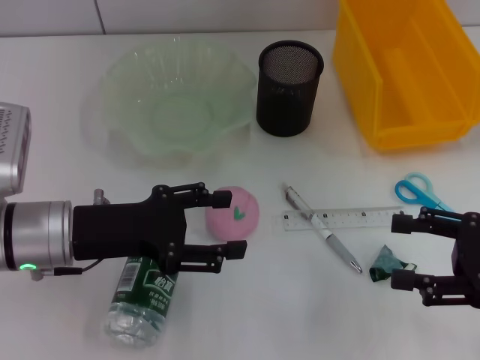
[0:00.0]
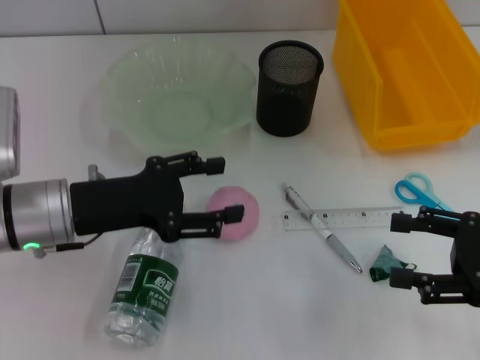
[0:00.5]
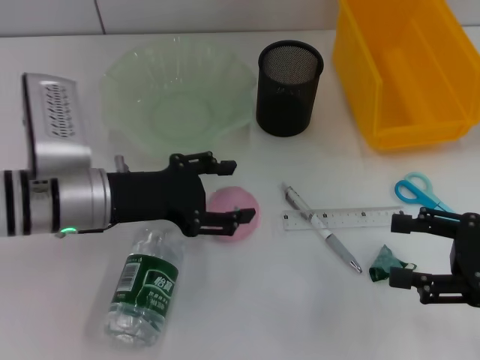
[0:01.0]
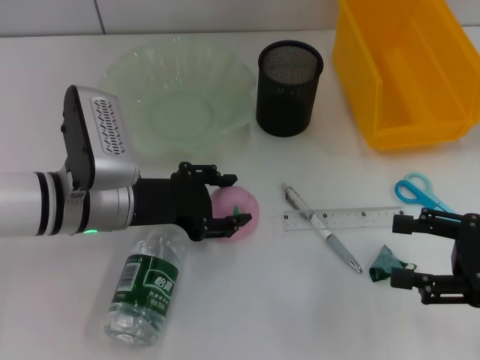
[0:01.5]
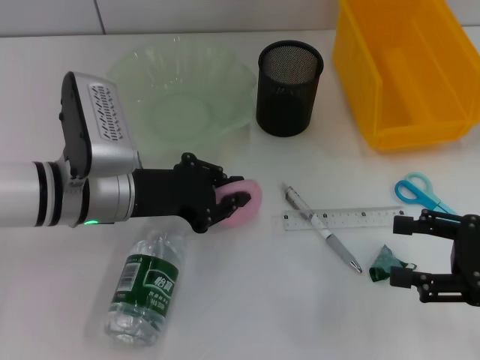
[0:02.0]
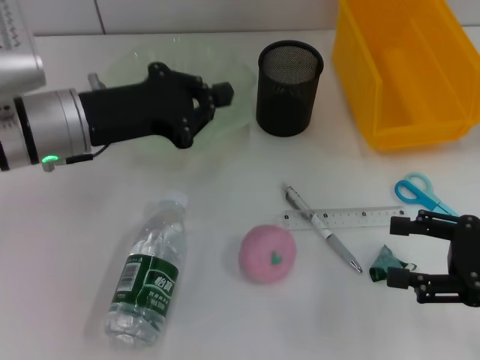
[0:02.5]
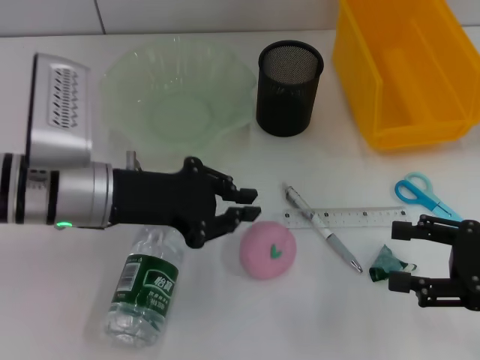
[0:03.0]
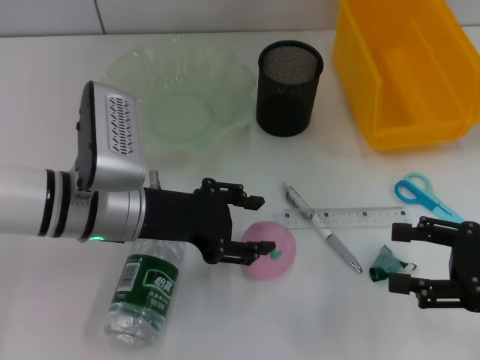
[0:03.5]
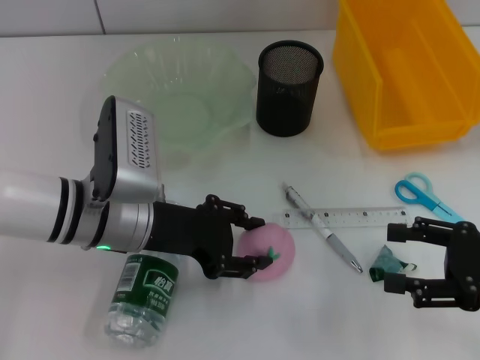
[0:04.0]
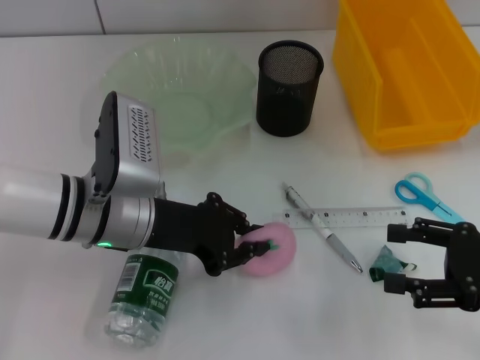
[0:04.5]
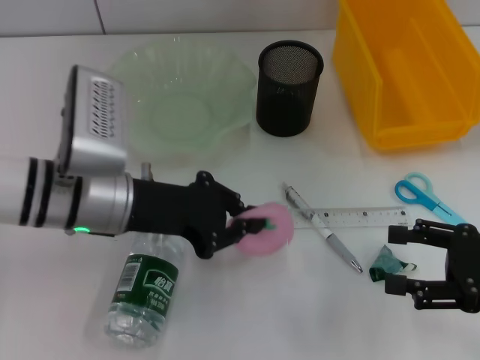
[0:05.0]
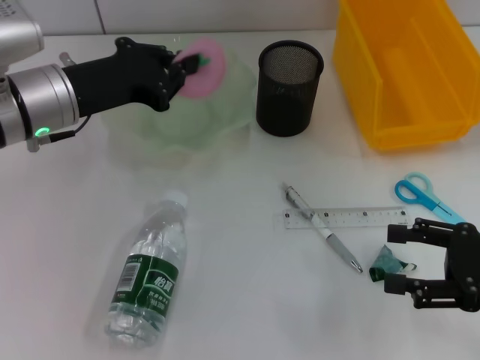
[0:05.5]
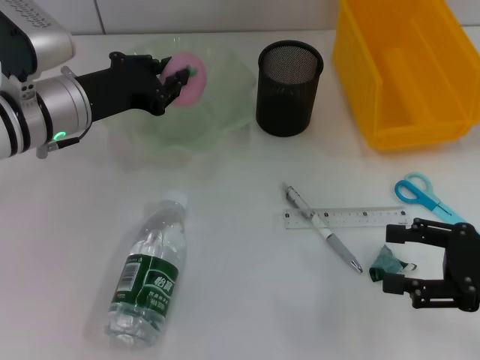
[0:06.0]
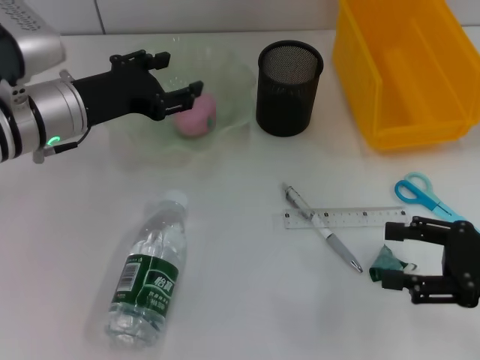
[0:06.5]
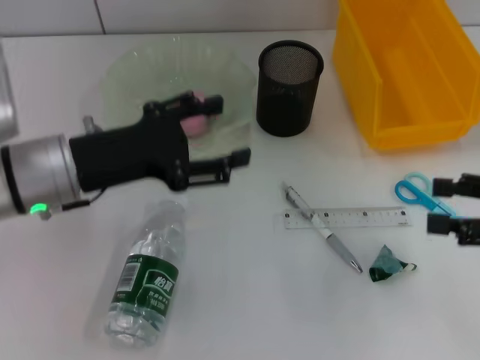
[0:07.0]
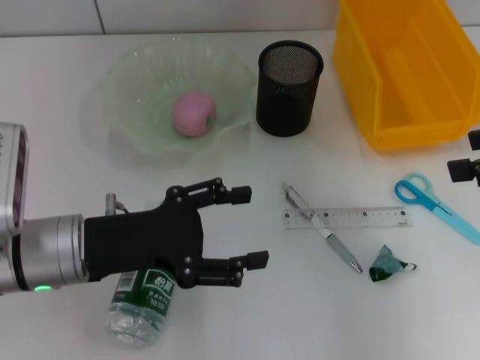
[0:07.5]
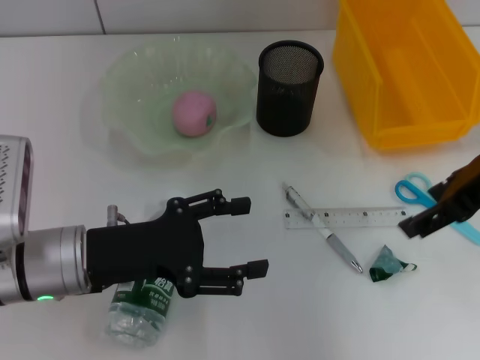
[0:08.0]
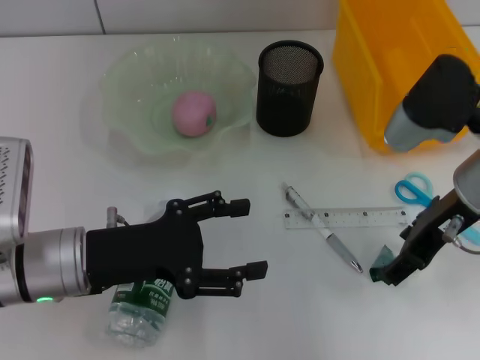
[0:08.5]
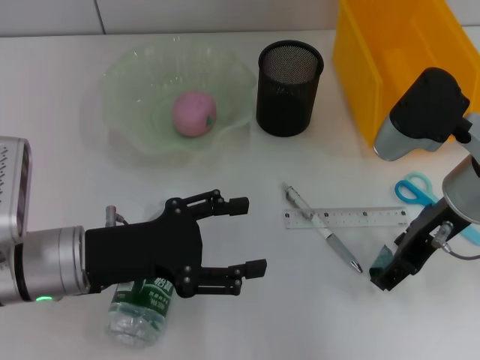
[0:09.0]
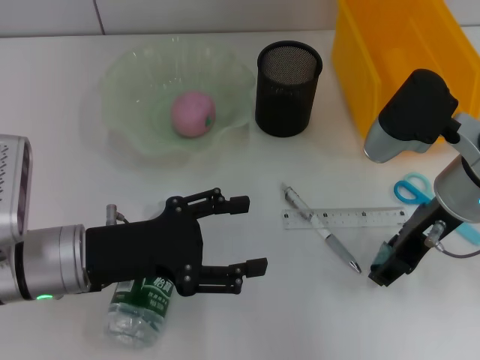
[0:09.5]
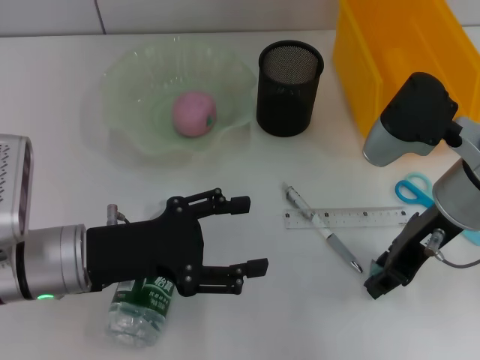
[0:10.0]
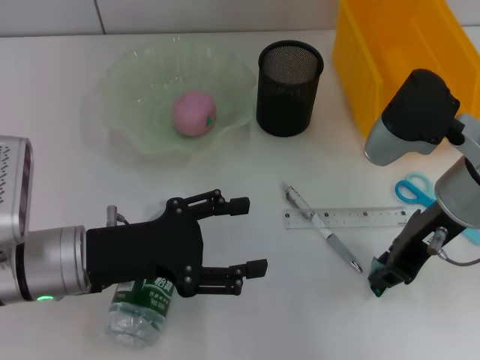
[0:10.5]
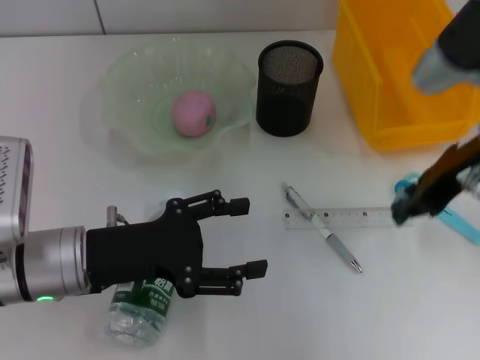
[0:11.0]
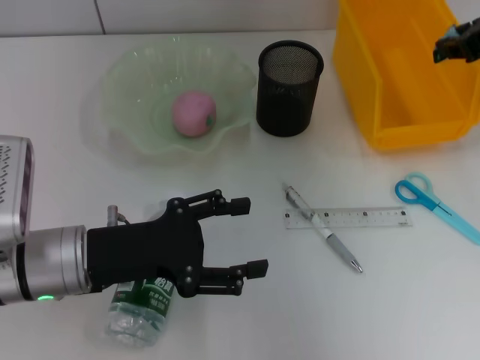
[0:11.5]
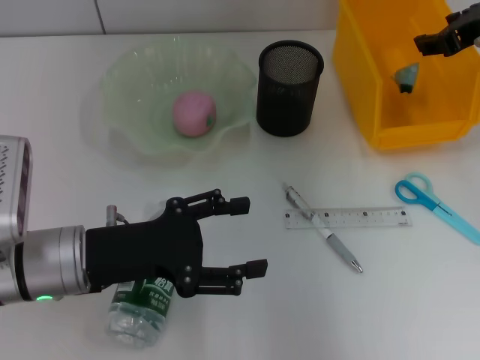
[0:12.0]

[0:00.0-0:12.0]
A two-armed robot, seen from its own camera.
Step, 0:00.0 to 0:04.0: Grab the peach with the left hand.
Step, 0:04.5 to 0:06.0: Place the peach into the fruit bowl with the left hand.
Step, 0:06.5 to 0:10.0: Grab the plastic with the right hand.
Step, 0:10.5 to 0:12.0: Place the plastic into the trash can with the right hand.
0:00.0 to 0:02.0: The left gripper moves approximately 5 cm, and closes its fingers.
0:02.0 to 0:04.0: The left gripper opens up.
0:04.0 to 0:06.0: The left gripper heads forward and to the left, covering about 10 cm, and closes up.
0:06.0 to 0:08.0: The right gripper heads upward, forward and to the left, covering approximately 15 cm. The left gripper heads backward, covering some 15 cm, and opens its fingers.
0:08.0 to 0:10.0: The right gripper travels downward and to the left by some 10 cm.
0:10.0 to 0:12.0: The right gripper shifts roughly 15 cm forward, upward and to the right.

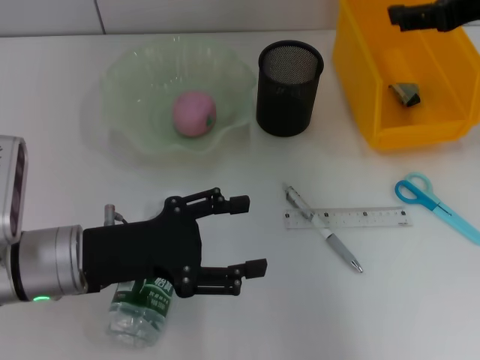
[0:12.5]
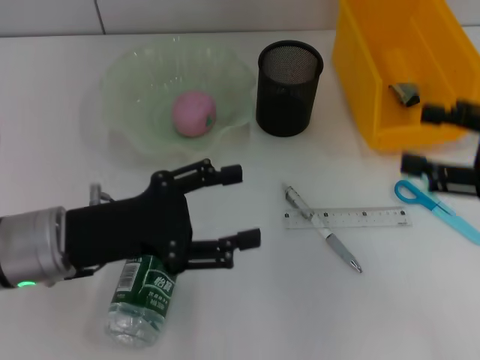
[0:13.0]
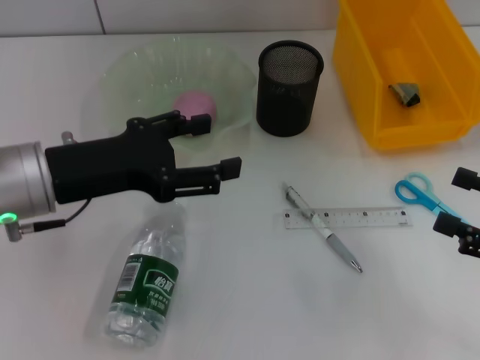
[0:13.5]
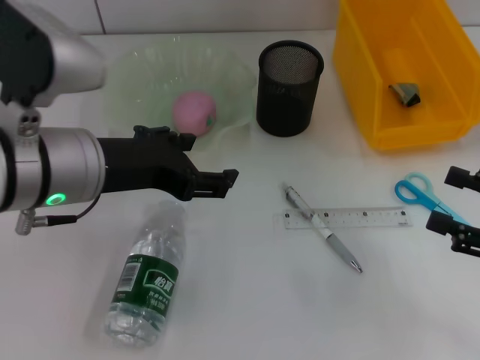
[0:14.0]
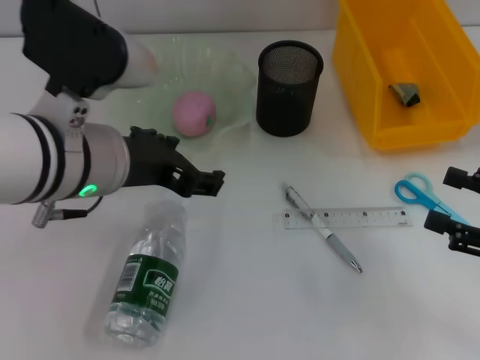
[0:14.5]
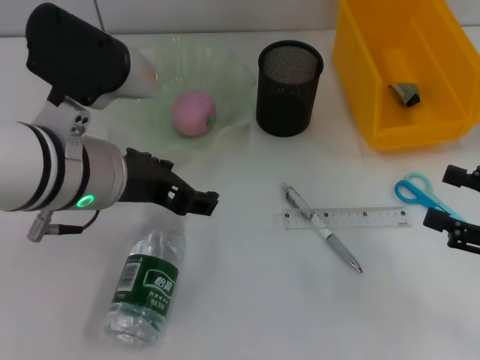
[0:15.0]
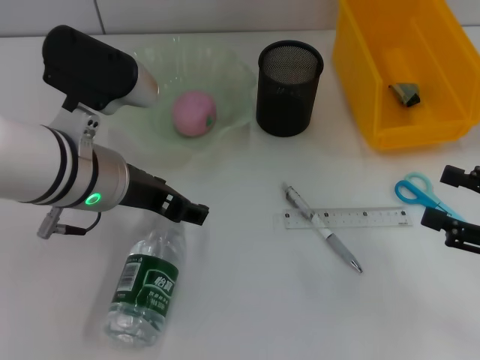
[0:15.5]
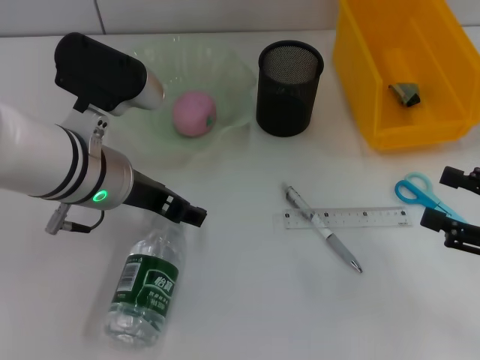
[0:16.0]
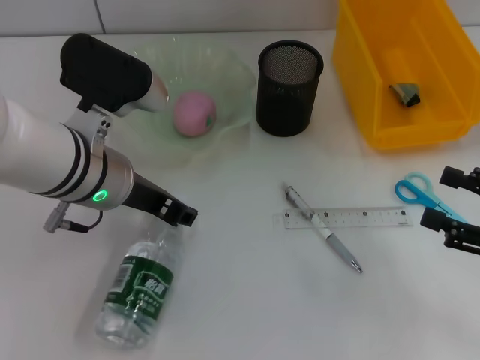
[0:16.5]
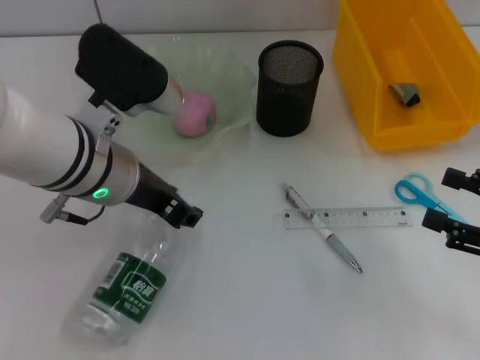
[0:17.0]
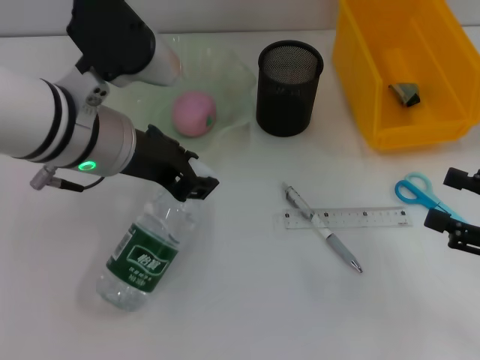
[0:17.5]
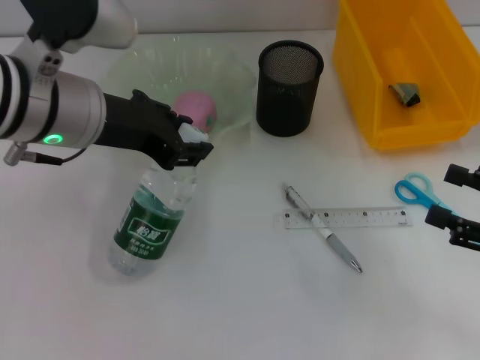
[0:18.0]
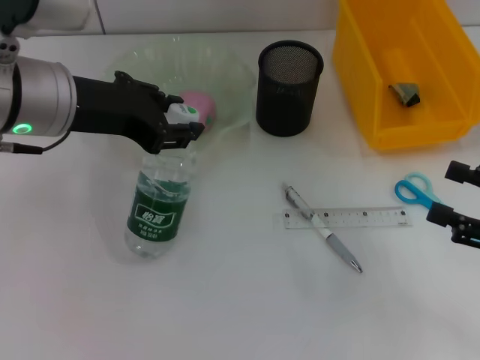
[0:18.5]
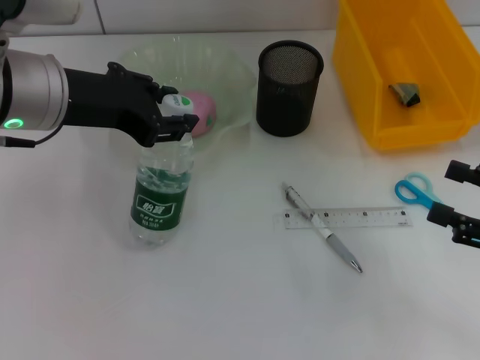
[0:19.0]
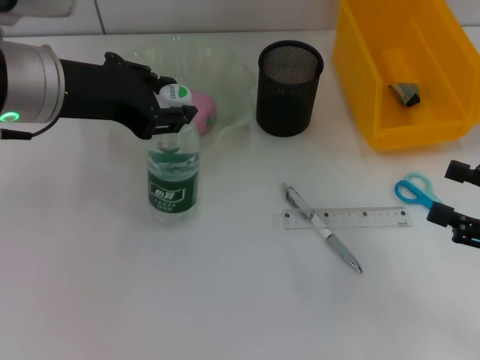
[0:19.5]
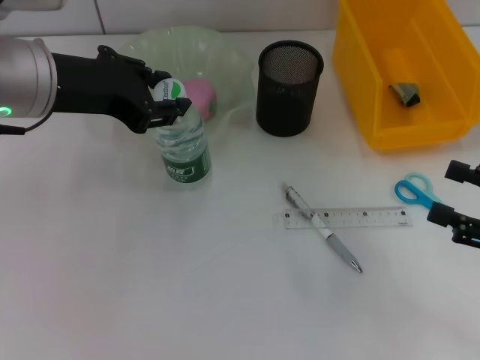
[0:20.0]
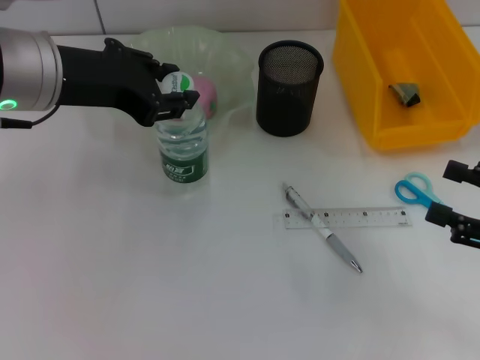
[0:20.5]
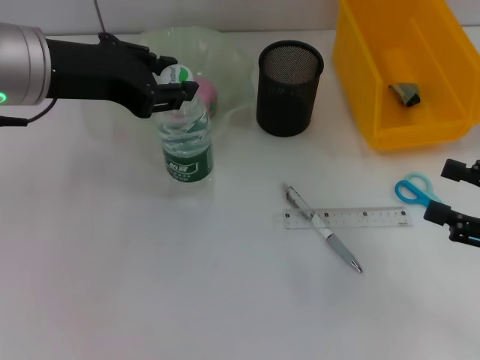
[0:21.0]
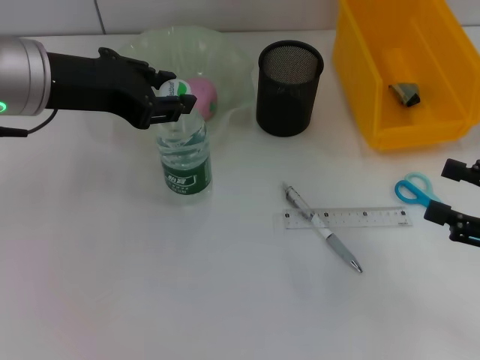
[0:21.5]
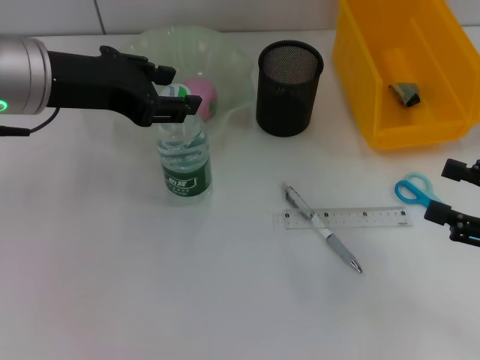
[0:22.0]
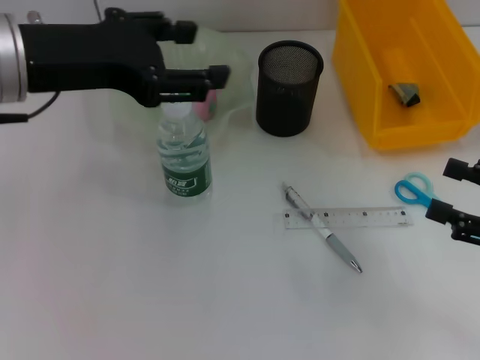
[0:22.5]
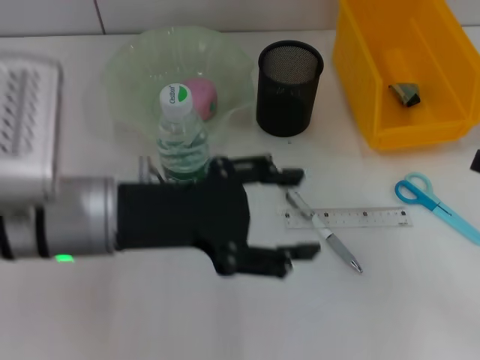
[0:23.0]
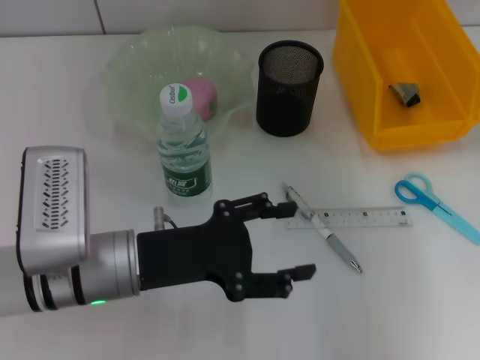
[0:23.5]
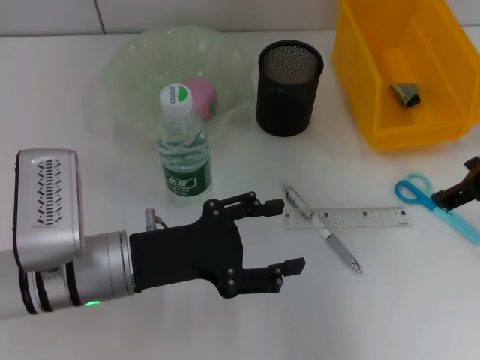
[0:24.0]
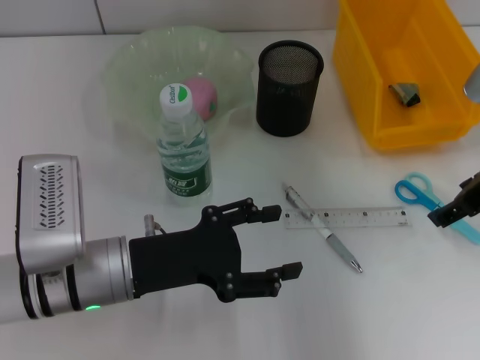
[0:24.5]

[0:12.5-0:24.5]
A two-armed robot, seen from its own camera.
Step, 0:12.5 to 0:16.5: Grab the water bottle with the left hand.
Step, 0:17.0 to 0:22.0: Place the water bottle on the table with the left hand.
0:12.5 to 0:14.5: The right gripper travels downward, backward and to the right by some 25 cm. Meanwhile the left gripper moves upward and to the right, about 10 cm.
0:14.5 to 0:16.5: The left gripper ends up approximately 5 cm from where it was.
0:16.5 to 0:18.5: The left gripper travels upward by approximately 5 cm.
0:18.5 to 0:20.5: The grippers move only a little.
0:20.5 to 0:22.5: The left gripper opens its fingers.
0:22.5 to 0:24.5: The left gripper travels downward by approximately 20 cm. Meanwhile the right gripper shifts some 15 cm forward, to the left and upward.

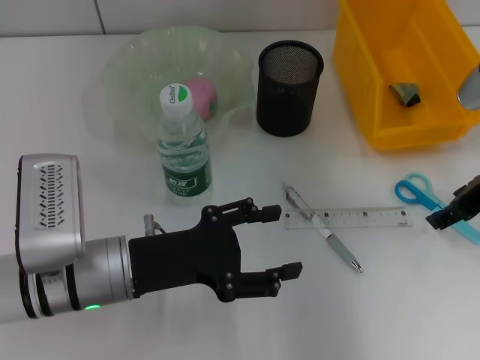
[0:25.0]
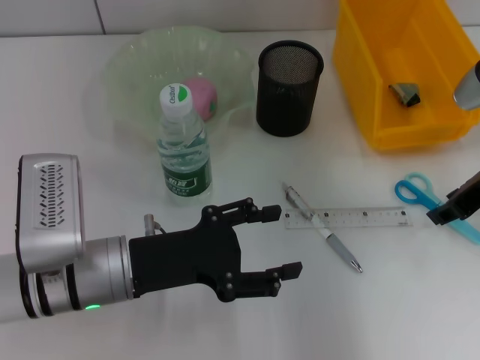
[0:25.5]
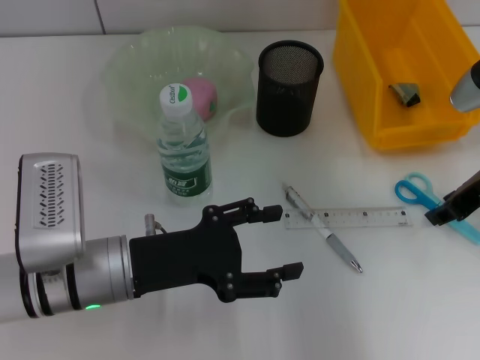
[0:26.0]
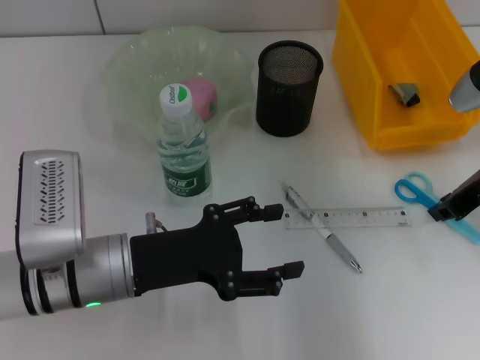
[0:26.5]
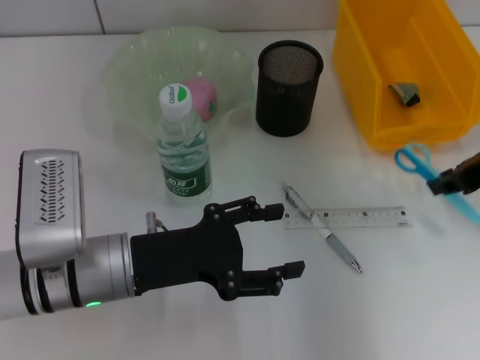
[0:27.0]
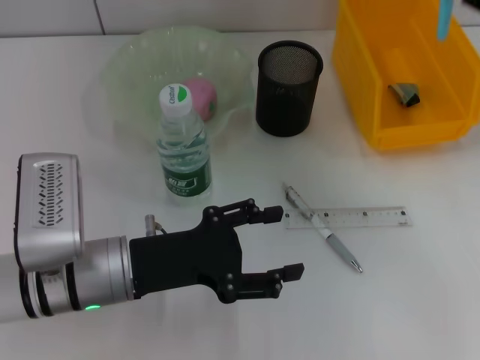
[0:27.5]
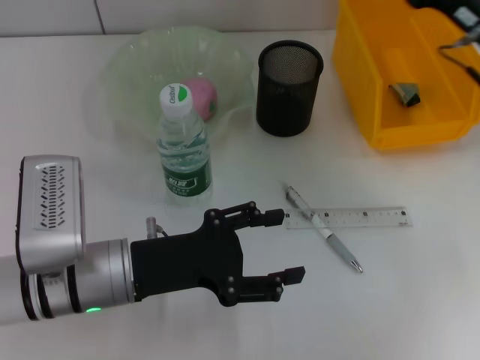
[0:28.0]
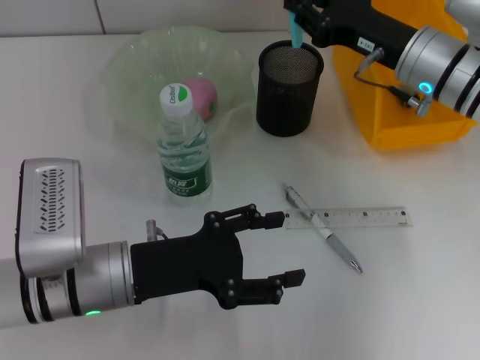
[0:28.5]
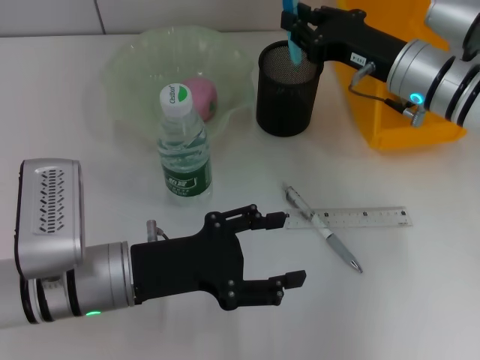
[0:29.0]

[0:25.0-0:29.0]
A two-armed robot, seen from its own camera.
0:25.0 to 0:27.0: The right gripper closes its fingers.
0:27.0 to 0:29.0: The right gripper heads to the left, forward and downward, covering some 15 cm.
